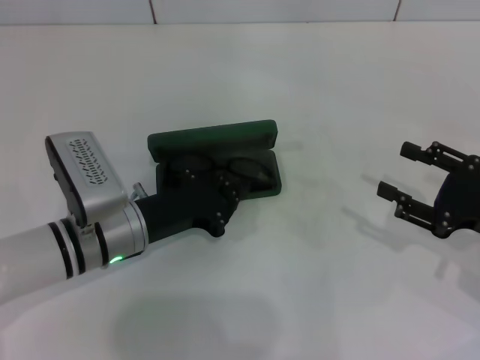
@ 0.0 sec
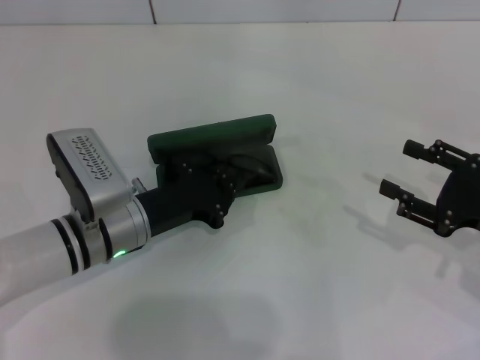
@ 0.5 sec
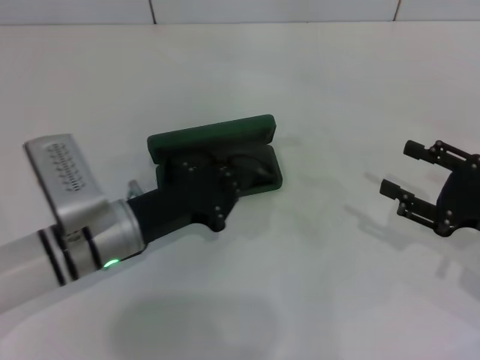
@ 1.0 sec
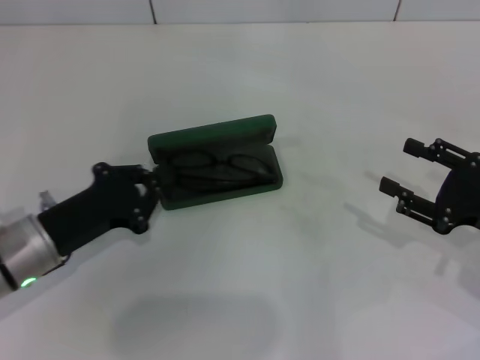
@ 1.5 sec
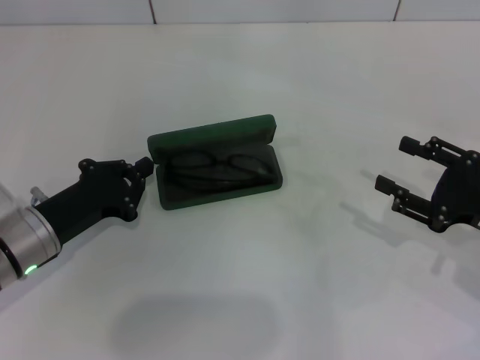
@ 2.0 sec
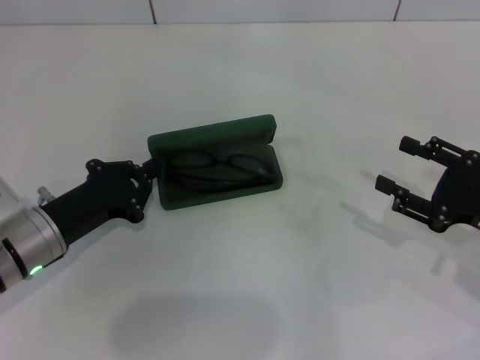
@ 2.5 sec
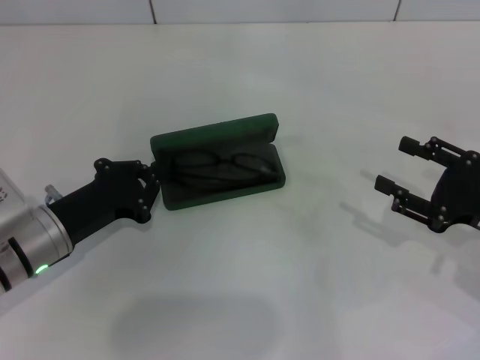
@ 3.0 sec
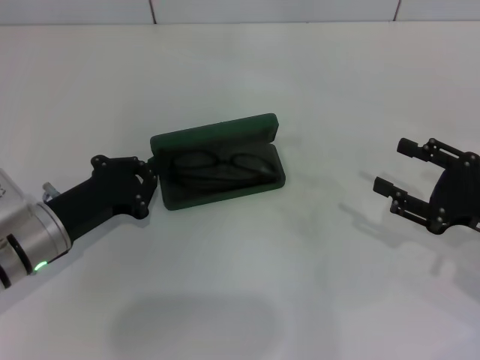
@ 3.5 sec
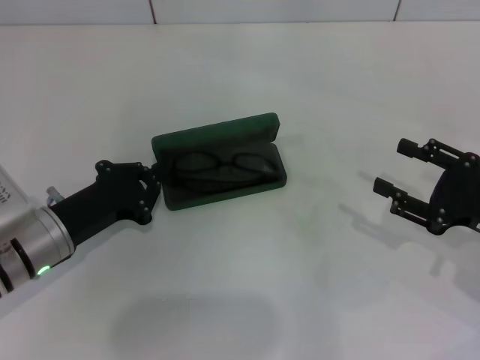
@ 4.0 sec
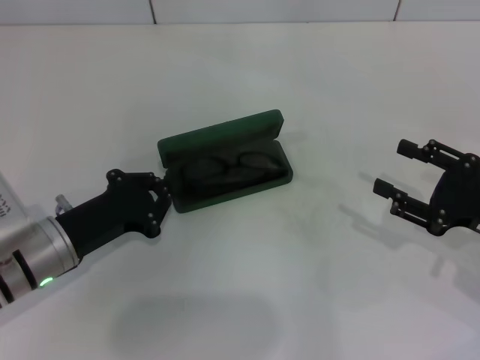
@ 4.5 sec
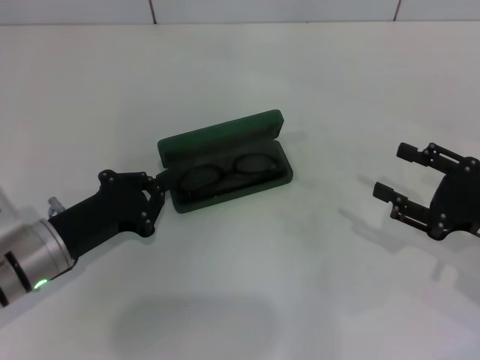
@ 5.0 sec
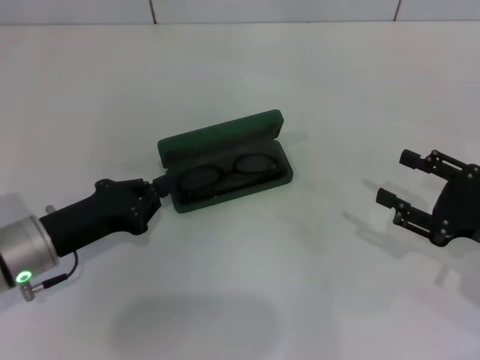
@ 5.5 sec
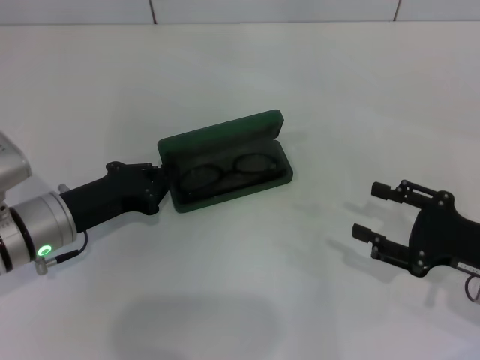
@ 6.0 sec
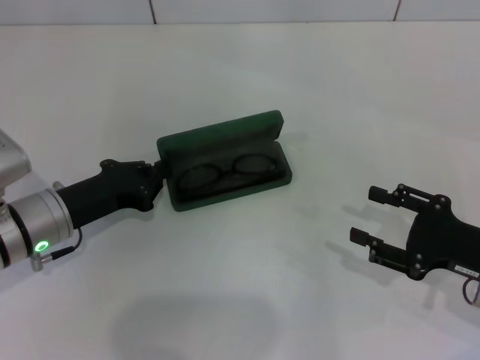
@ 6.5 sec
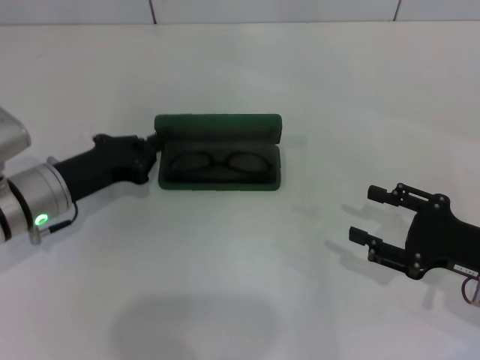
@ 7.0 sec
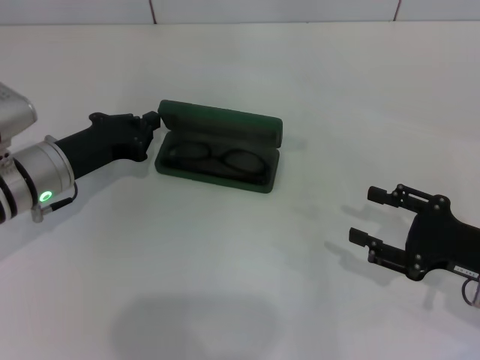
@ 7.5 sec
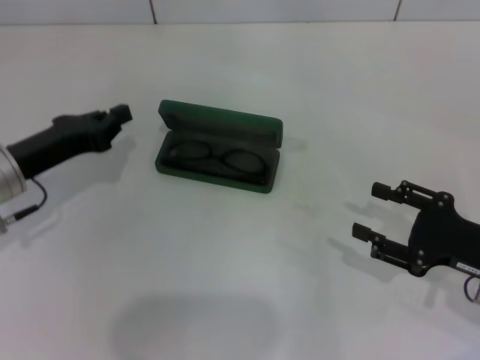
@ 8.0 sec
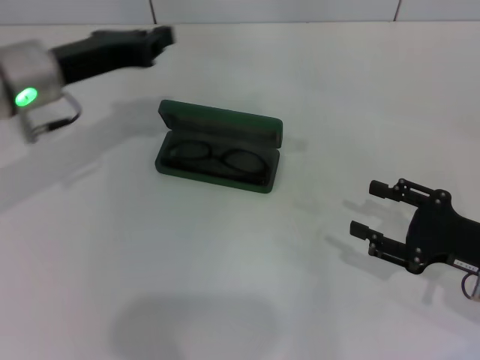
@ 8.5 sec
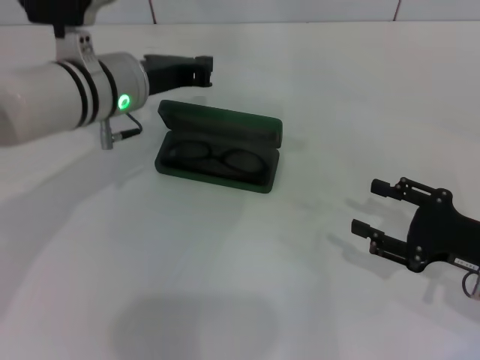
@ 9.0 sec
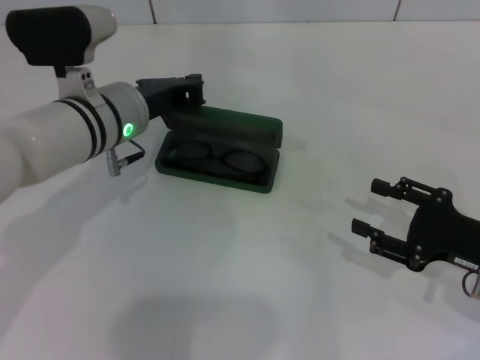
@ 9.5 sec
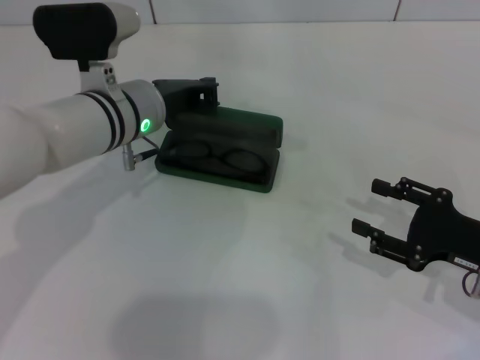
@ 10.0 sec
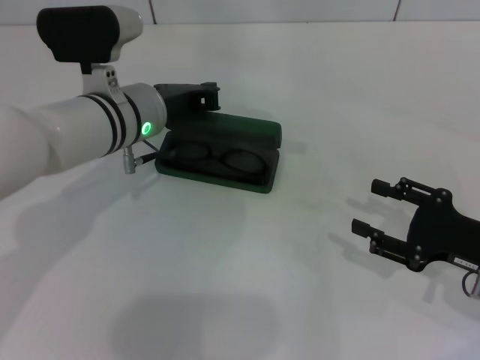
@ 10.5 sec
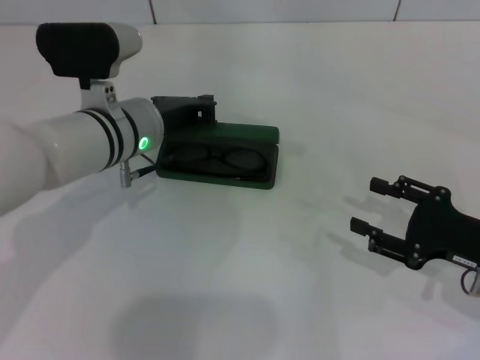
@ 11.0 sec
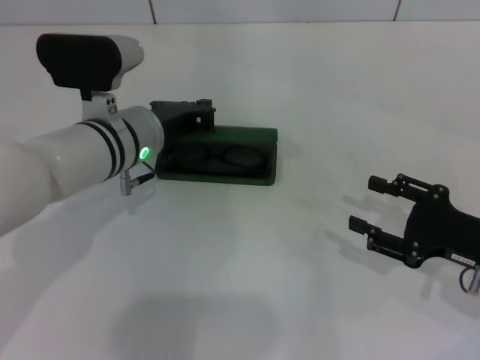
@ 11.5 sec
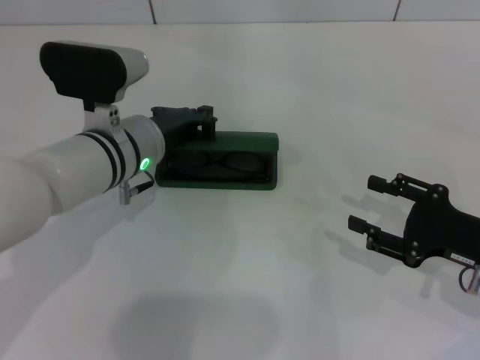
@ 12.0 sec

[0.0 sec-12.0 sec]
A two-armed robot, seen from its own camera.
0.0 sec to 2.0 sec: The left gripper travels to the left by approximately 10 cm.
2.0 sec to 4.0 sec: Both grippers stay about where they are.
6.0 sec to 8.0 sec: The left gripper shifts by approximately 5 cm.
8.0 sec to 10.0 sec: The left gripper shifts about 15 cm to the right and forward.
10.0 sec to 12.0 sec: There are only small adjustments of the grippers.

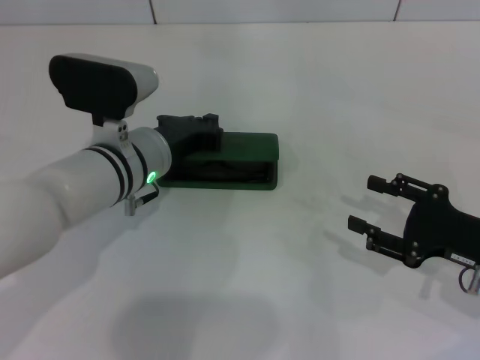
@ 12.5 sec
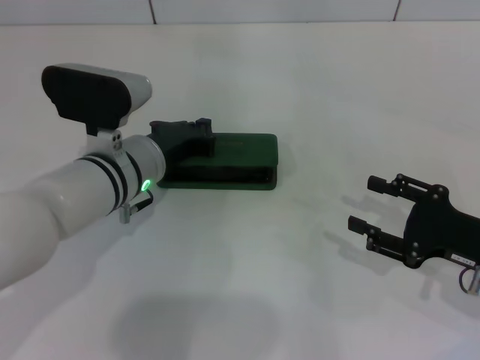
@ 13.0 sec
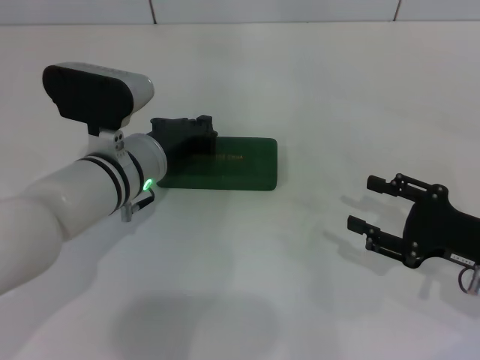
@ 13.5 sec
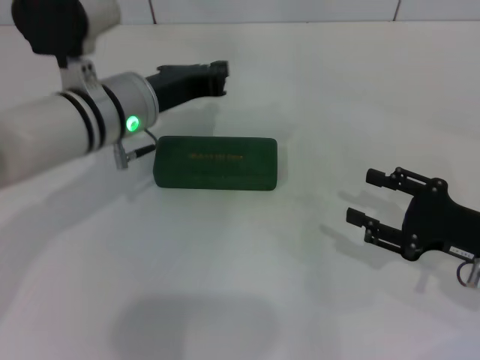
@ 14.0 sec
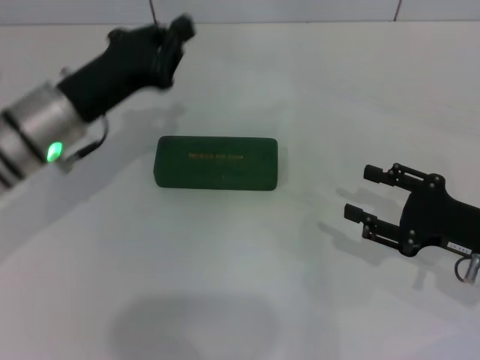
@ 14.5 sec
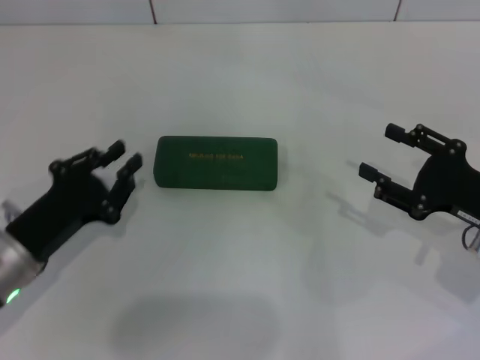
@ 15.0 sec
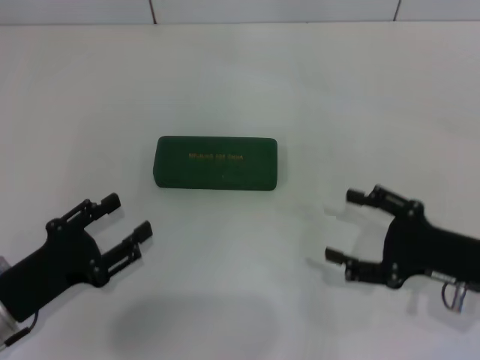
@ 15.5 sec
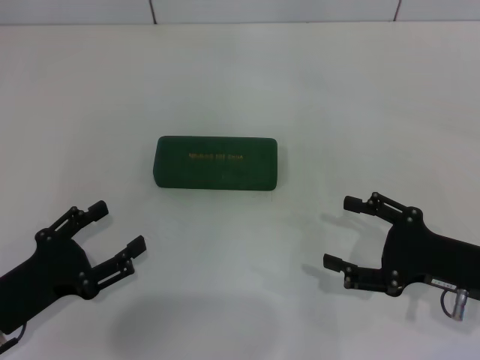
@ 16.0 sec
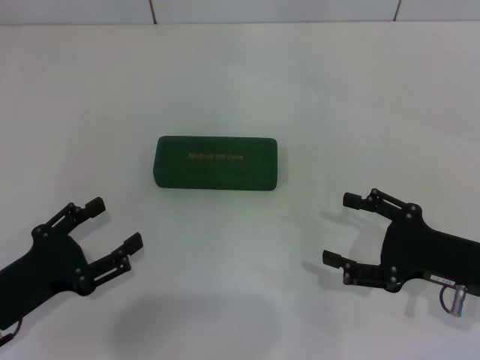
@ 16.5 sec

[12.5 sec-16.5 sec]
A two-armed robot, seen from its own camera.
12.5 sec to 14.5 sec: The left gripper heads to the left, covering about 10 cm.
14.5 sec to 16.5 sec: The left gripper heads backward, downward and to the left, covering some 20 cm, and opens.
